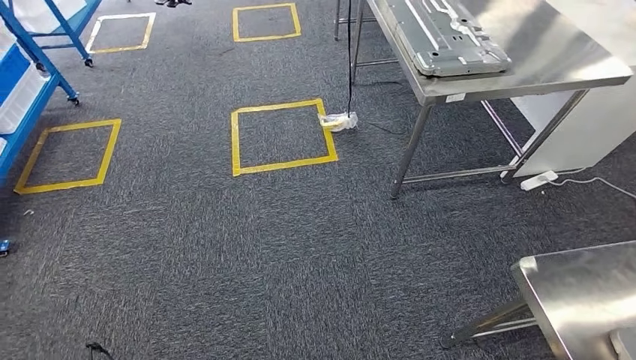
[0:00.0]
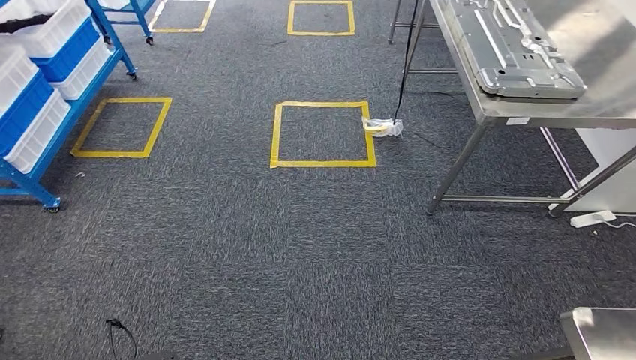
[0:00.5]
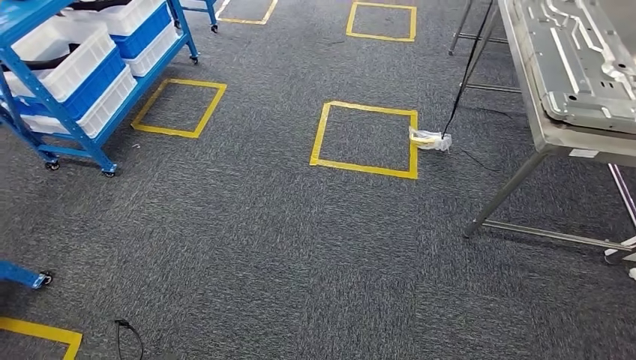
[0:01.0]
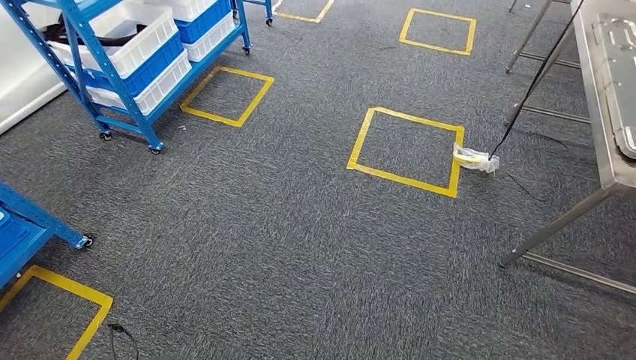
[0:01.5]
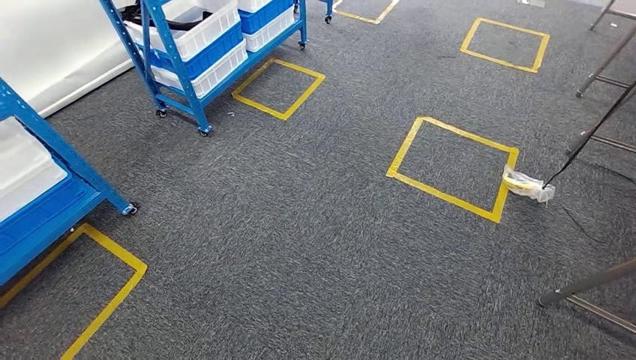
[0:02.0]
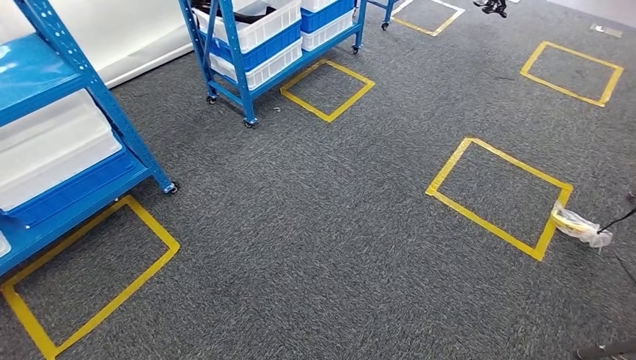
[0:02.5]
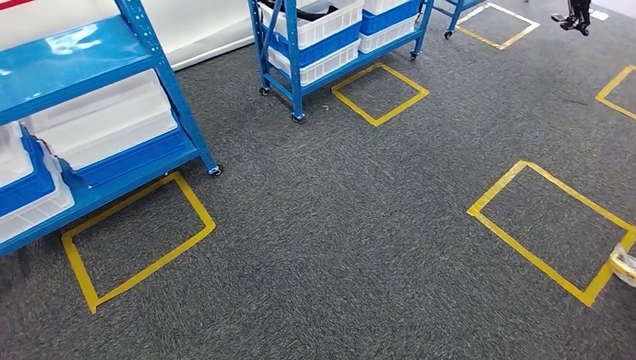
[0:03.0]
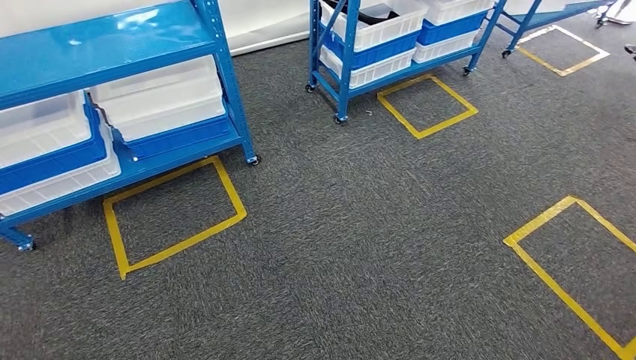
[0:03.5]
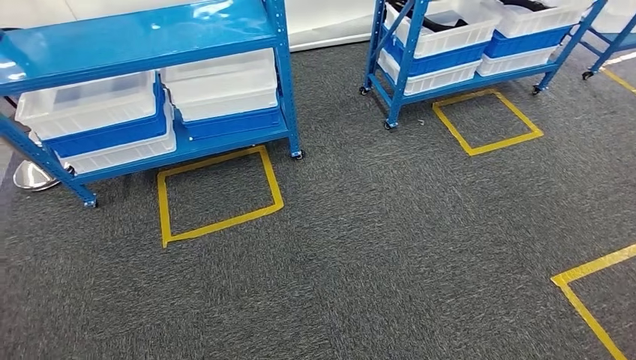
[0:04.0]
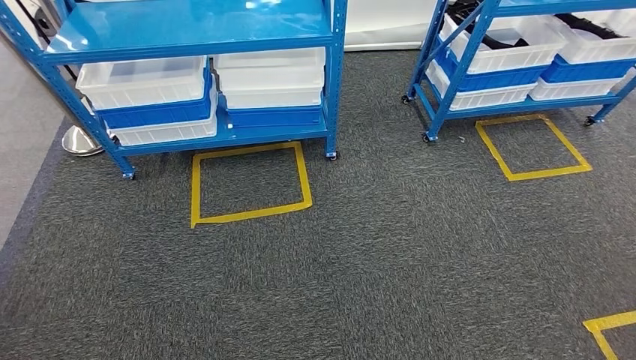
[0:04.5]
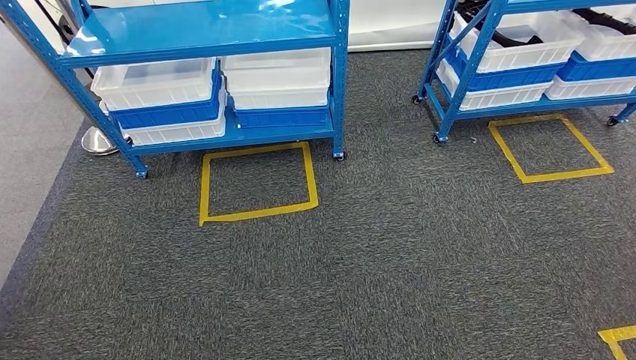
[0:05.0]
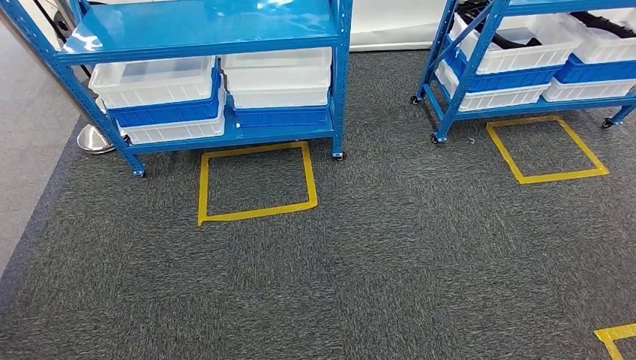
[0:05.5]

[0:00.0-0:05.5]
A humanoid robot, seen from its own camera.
Step, 0:01.0 to 0:05.5: Move to the initial position of the shelf.
